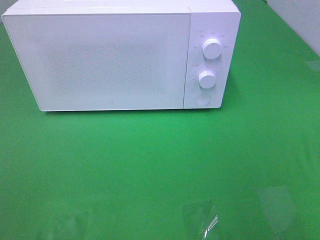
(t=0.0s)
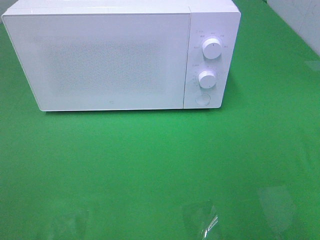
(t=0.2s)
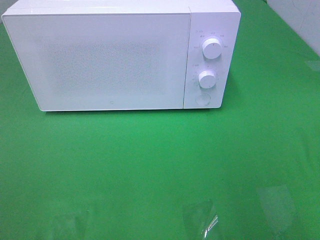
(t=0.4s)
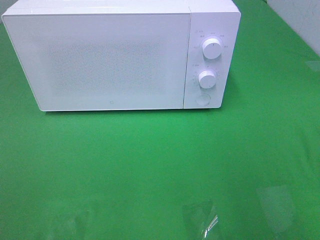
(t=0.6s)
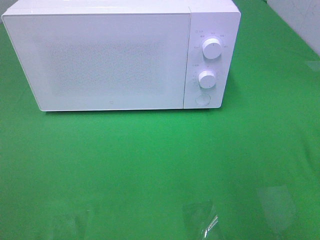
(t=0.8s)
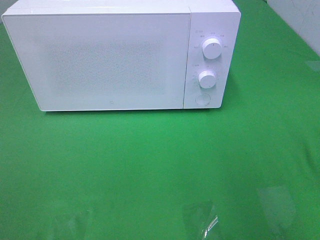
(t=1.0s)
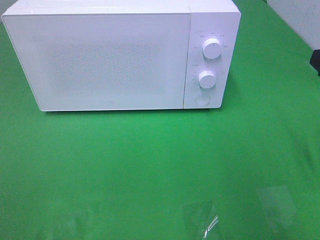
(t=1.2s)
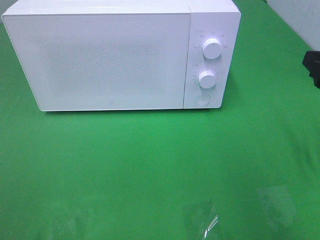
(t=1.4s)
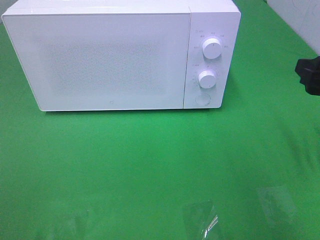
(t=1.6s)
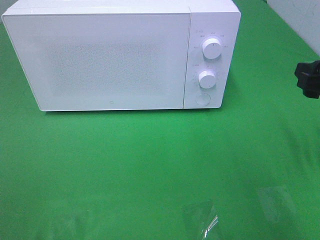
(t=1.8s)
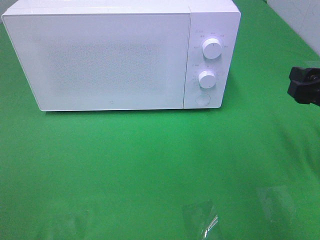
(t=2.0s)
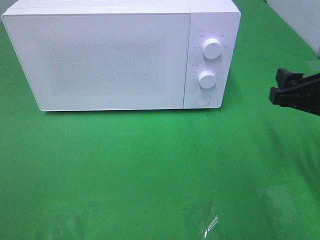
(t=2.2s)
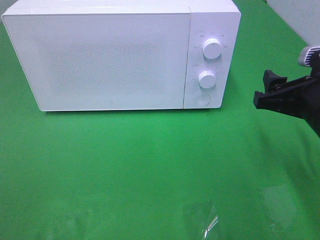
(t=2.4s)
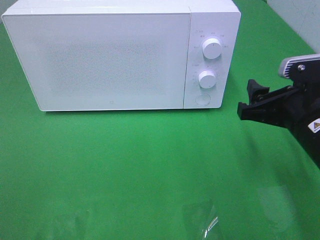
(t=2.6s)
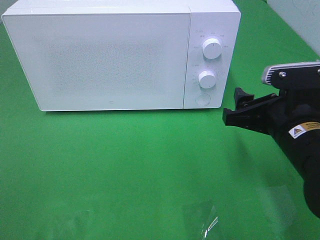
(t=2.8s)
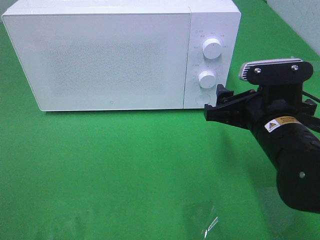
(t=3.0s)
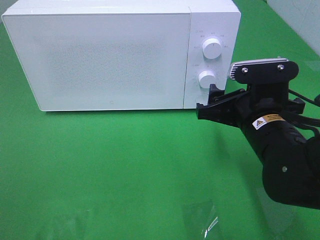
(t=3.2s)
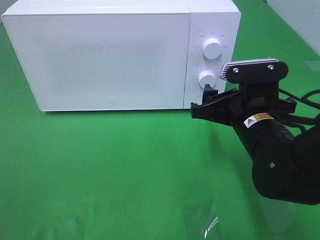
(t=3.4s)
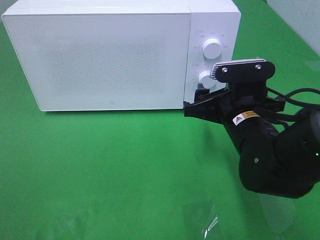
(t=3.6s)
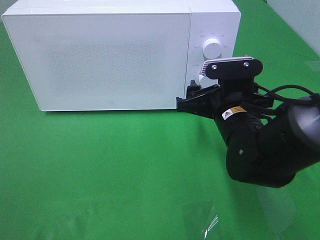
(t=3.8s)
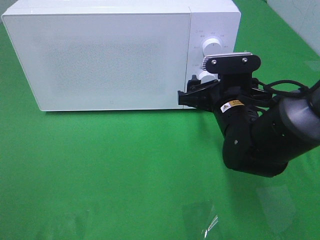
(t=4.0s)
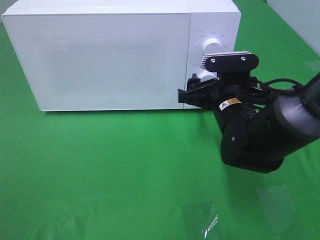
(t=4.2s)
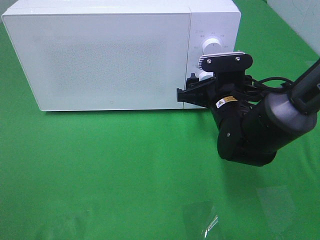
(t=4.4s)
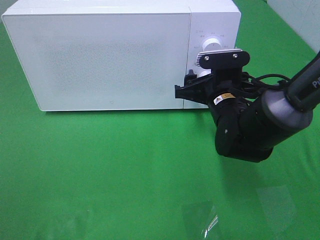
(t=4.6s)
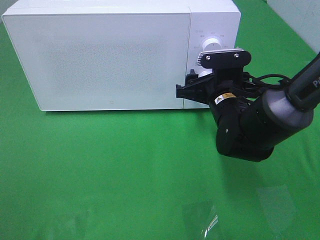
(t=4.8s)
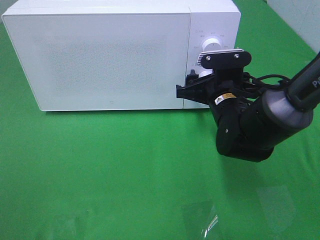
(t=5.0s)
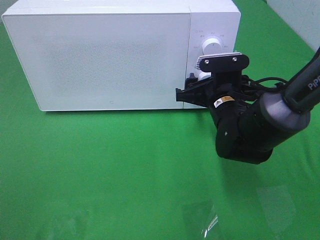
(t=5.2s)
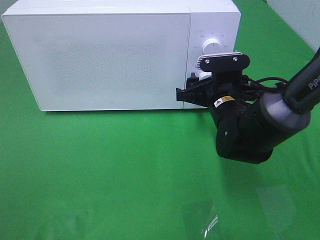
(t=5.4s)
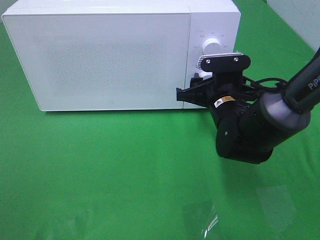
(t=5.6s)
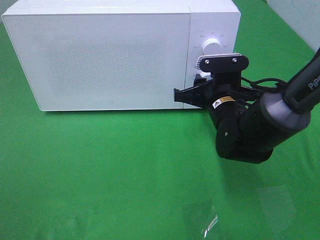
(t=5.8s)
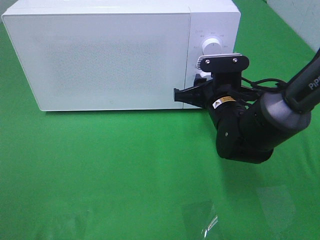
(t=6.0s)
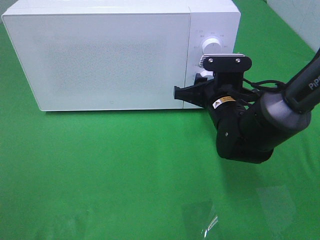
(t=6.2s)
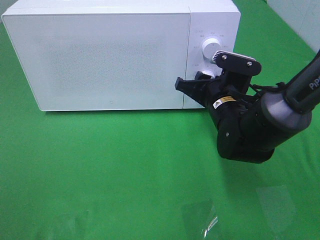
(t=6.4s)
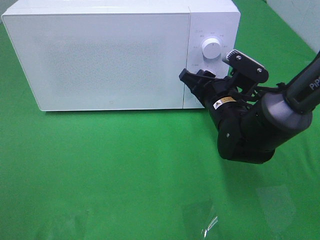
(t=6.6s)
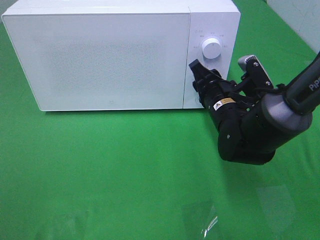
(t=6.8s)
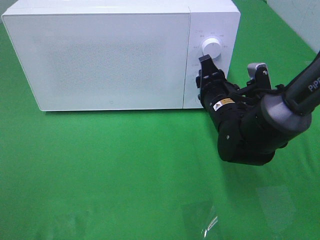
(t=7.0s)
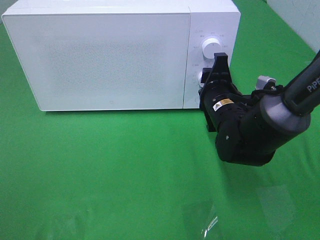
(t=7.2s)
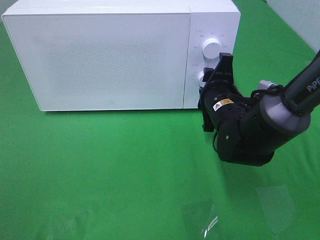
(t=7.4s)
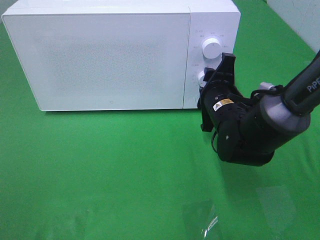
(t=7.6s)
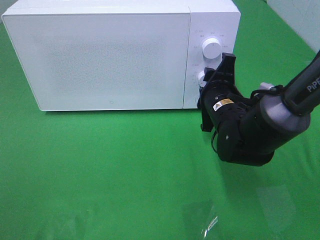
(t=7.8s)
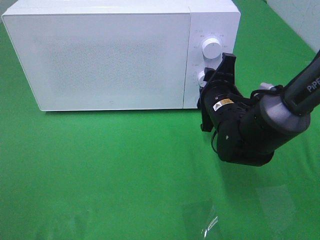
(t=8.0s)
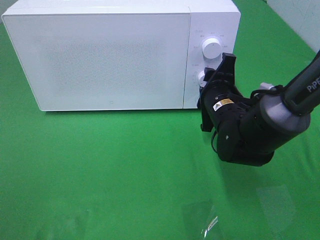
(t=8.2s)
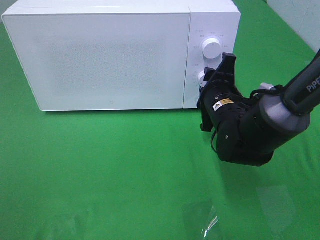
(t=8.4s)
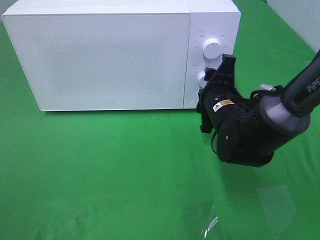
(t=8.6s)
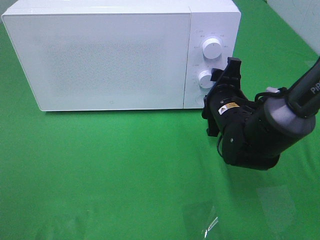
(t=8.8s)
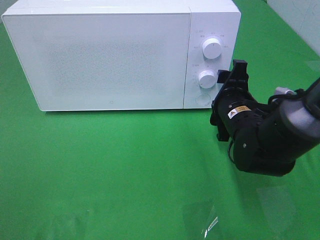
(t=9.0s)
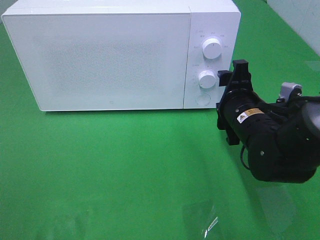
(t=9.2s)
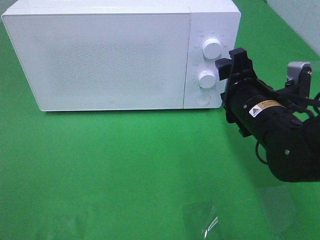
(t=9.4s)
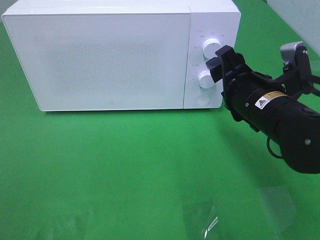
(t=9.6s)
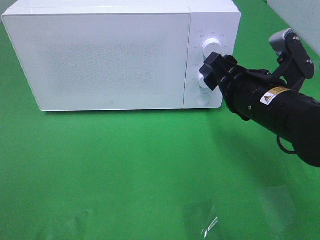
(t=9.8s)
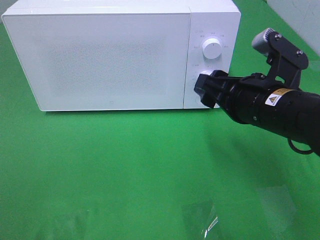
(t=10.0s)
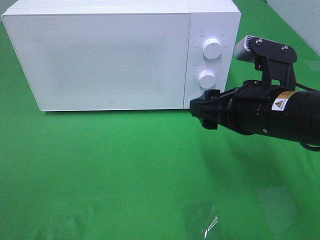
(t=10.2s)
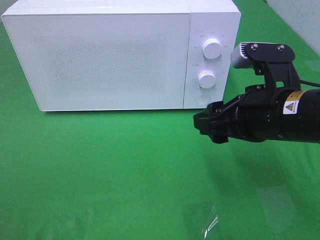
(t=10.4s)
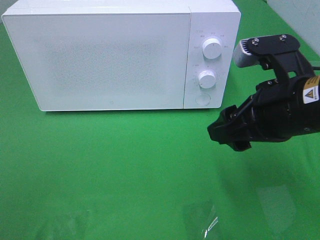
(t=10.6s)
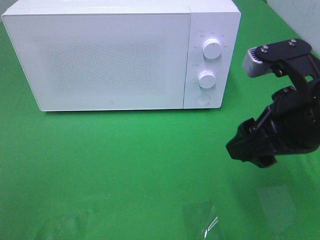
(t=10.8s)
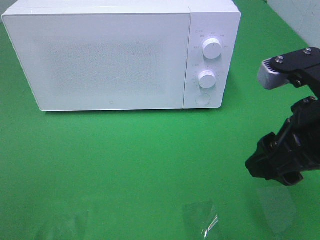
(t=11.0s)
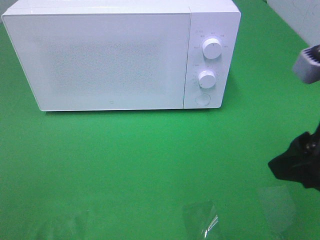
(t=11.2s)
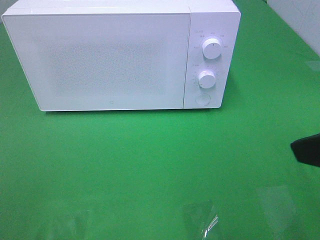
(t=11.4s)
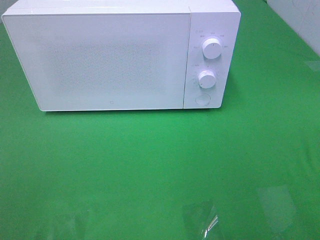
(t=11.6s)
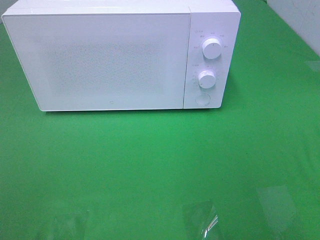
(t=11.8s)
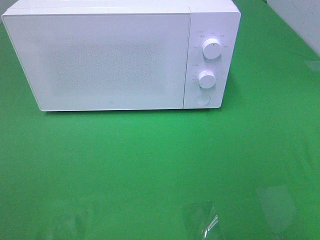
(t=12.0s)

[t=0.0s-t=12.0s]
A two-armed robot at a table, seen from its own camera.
Task of the whole recording: Heat the burger.
Step, t=0.0s to t=5.8s: Right hand: twist timer button.
t=0.0s to t=1.6s: The right gripper is displaced forward by approximately 15 cm.
t=1.6s to t=3.0s: The right gripper goes approximately 15 cm to the left and downward.
t=3.0s to t=4.4s: The right gripper moves forward, approximately 10 cm.
t=4.4s to t=6.0s: The right gripper closes up.
t=7.6s to t=9.0s: There are only small adjustments of the grippers.
t=9.0s to t=10.4s: The right gripper travels upward and backward by approximately 15 cm.
t=10.4s to t=12.0s: The right gripper is displaced backward, to the right and upward by some 25 cm.

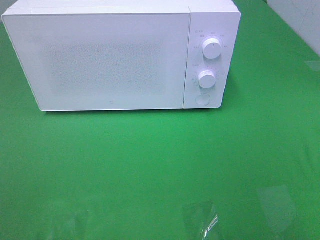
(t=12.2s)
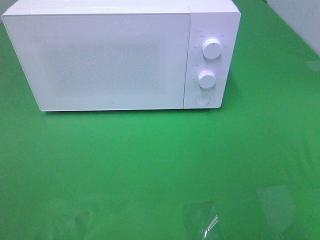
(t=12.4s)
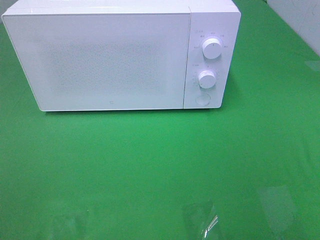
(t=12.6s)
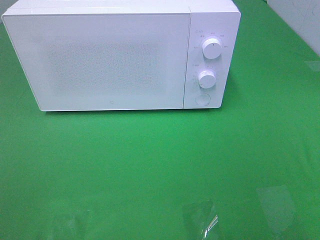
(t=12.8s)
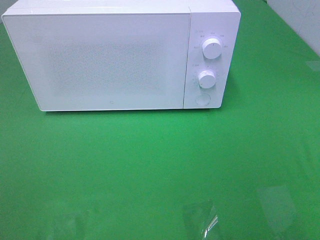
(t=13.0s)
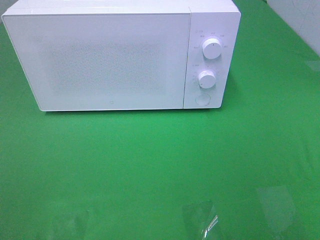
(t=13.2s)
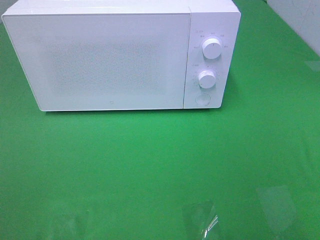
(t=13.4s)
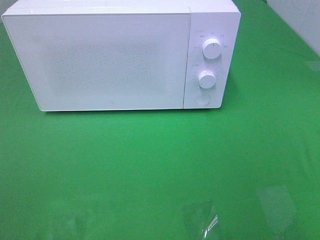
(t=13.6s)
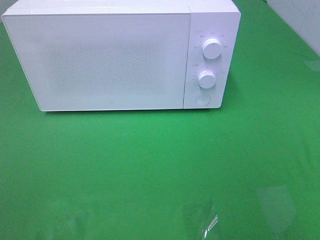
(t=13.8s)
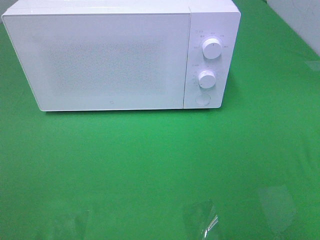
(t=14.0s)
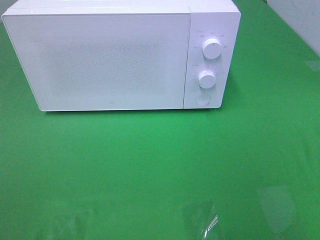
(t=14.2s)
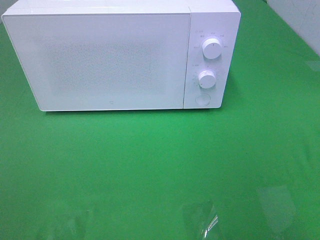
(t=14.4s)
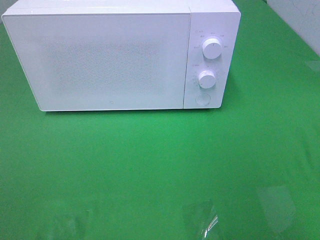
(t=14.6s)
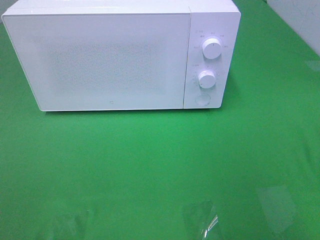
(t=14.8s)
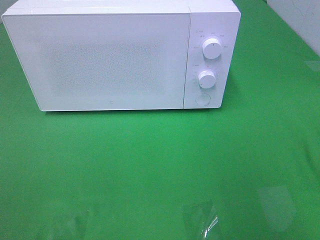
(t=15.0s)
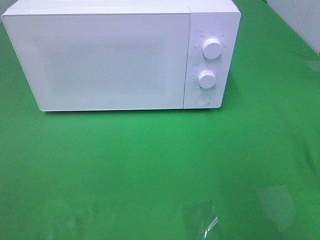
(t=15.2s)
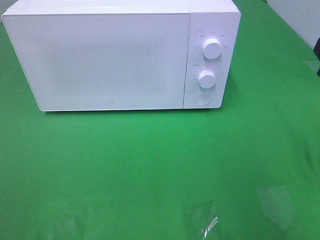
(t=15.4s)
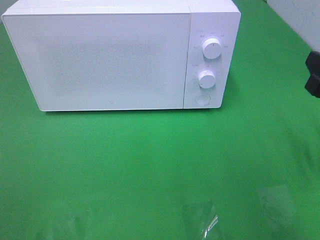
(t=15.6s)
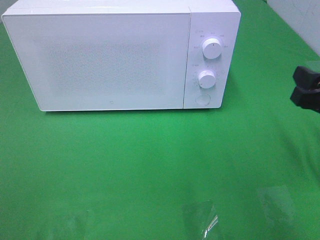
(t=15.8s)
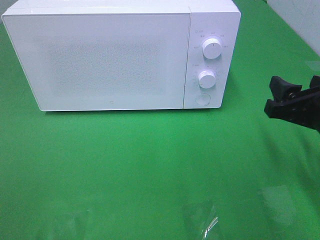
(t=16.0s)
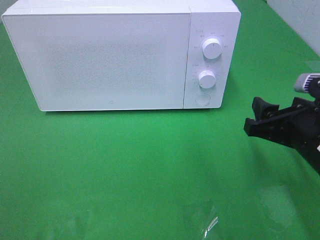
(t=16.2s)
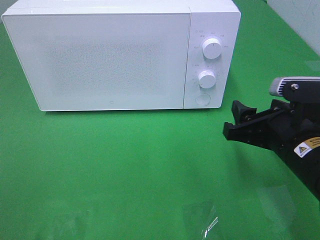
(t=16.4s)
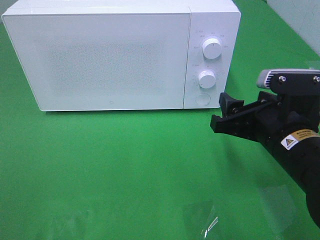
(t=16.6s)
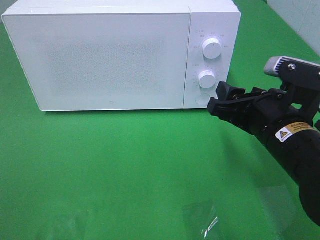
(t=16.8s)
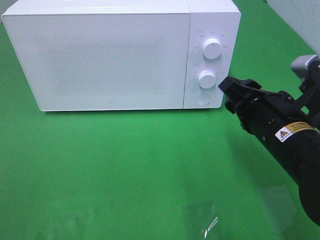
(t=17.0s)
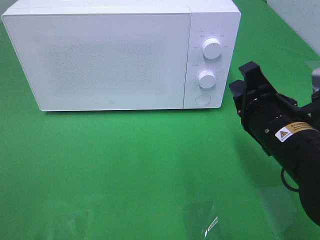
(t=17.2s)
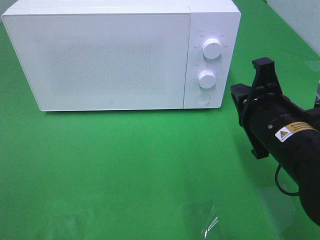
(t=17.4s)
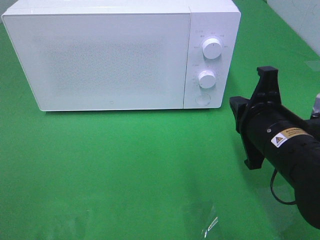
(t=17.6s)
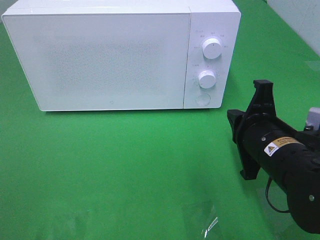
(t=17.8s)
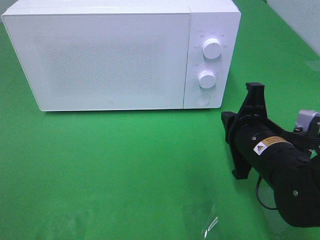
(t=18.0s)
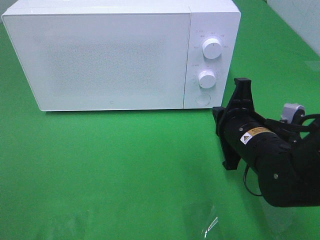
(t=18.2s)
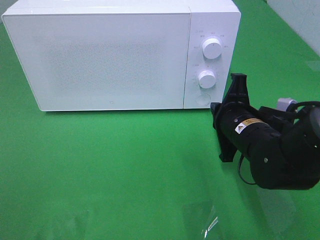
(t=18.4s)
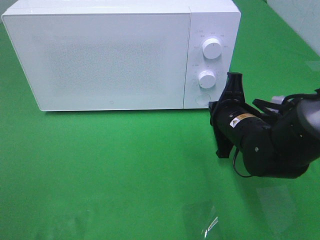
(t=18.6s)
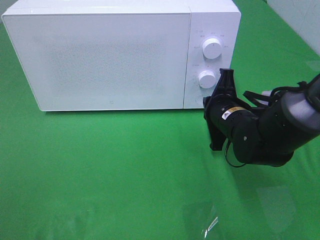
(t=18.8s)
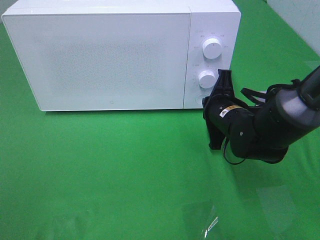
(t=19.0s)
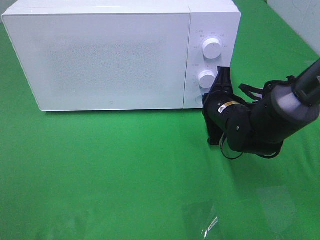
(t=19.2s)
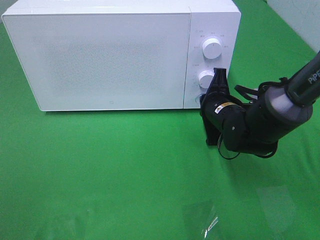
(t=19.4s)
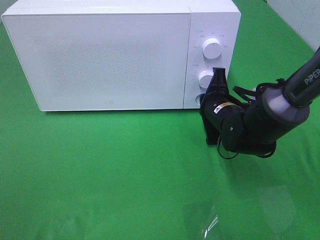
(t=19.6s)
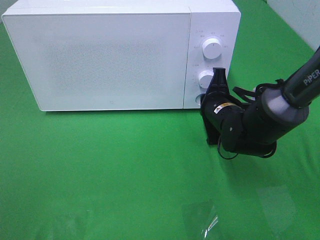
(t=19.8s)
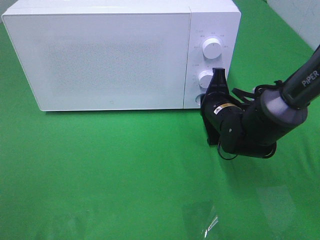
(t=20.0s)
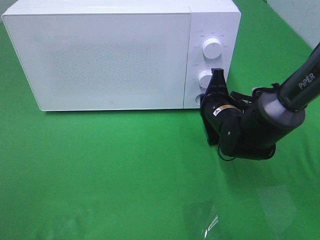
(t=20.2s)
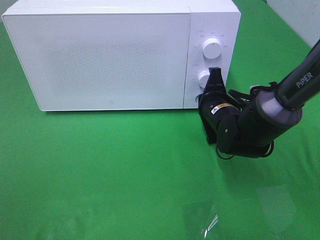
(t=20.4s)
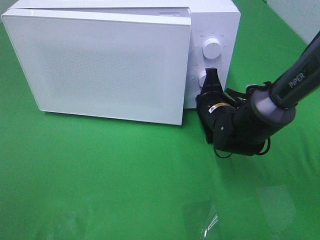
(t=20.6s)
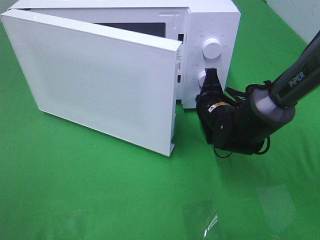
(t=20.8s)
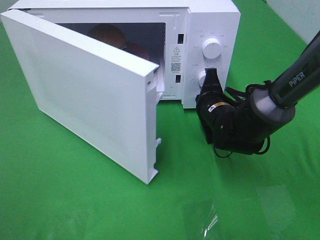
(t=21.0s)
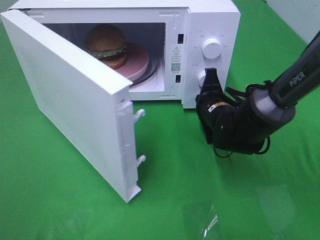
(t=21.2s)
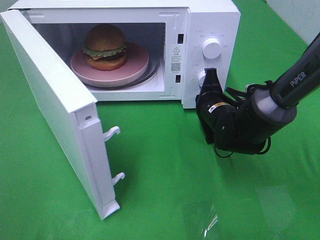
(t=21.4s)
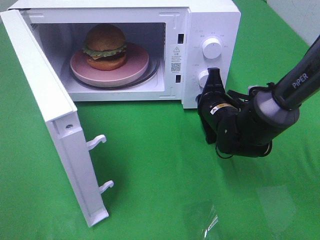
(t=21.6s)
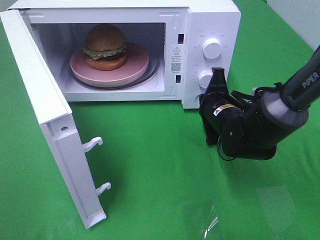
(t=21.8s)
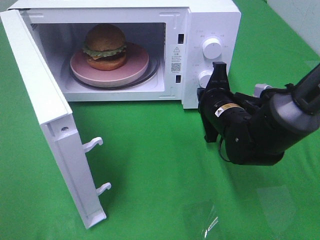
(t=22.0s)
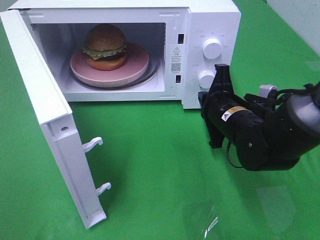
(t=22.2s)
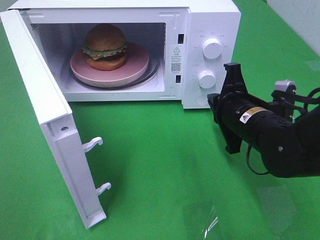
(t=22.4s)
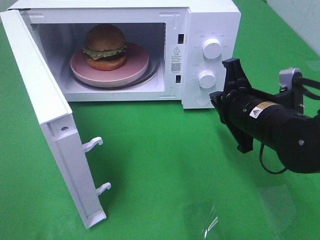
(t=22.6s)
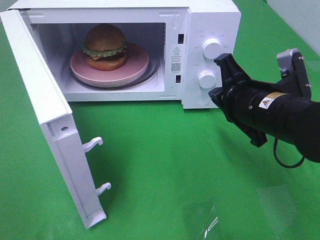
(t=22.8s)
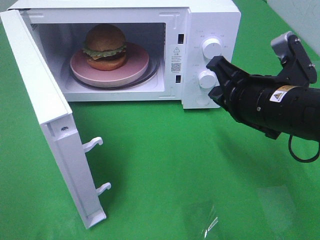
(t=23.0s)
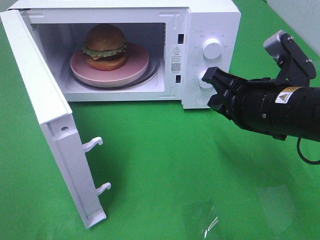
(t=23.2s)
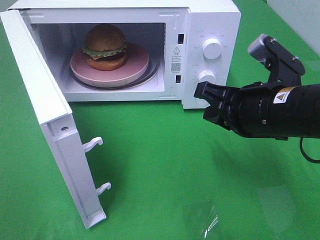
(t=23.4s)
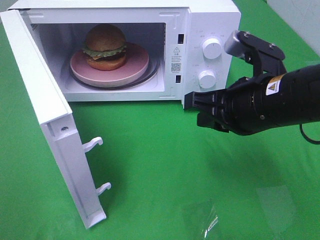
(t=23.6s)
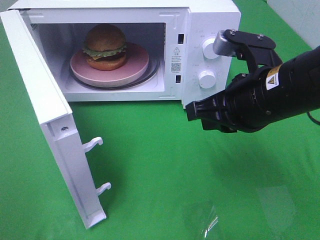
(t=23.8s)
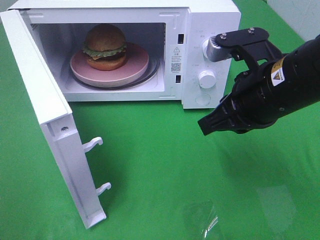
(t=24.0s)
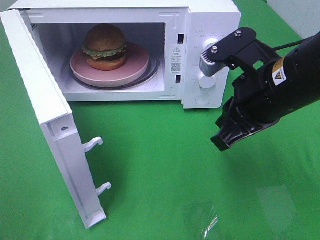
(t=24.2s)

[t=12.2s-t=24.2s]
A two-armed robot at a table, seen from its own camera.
Task of the whole recording: Heat the burger.
Step, t=12.2s to t=20.4s: Right hand: press the switch.
t=15.2s to t=16.6s: The right gripper travels to the left and downward by some 15 cm.
t=16.6s to t=18.2s: The right gripper changes place by approximately 5 cm, and closes.
t=18.2s to t=19.8s: The right gripper shifts approximately 10 cm forward.
t=21.2s to t=22.6s: The right gripper goes some 10 cm backward and upward.
t=22.6s to t=24.2s: The right gripper goes roughly 10 cm upward.
